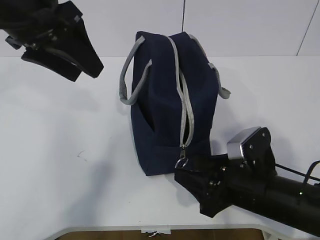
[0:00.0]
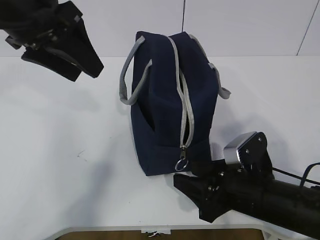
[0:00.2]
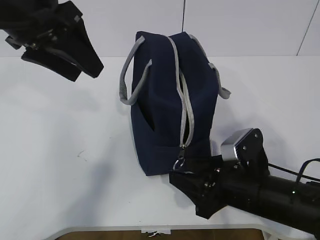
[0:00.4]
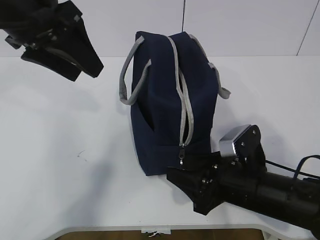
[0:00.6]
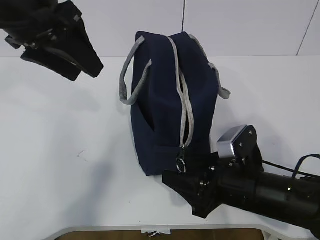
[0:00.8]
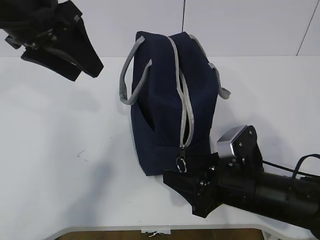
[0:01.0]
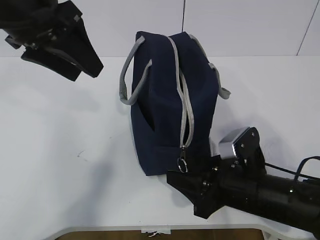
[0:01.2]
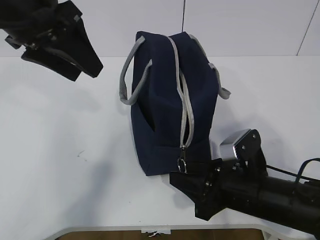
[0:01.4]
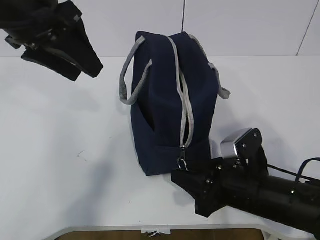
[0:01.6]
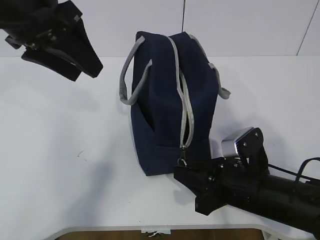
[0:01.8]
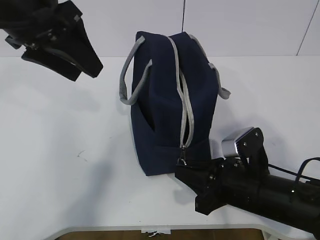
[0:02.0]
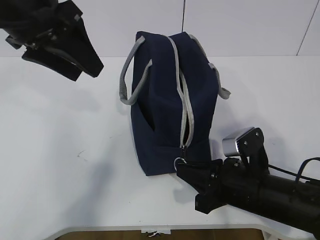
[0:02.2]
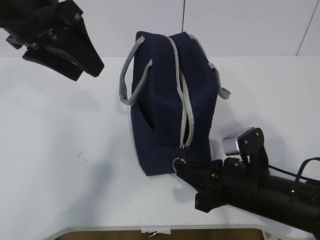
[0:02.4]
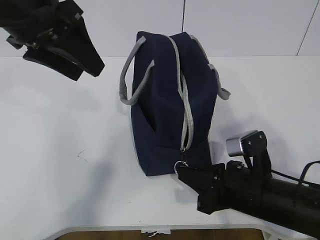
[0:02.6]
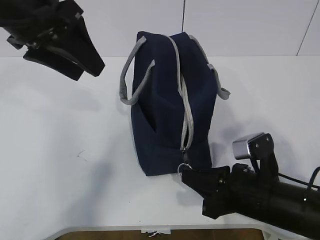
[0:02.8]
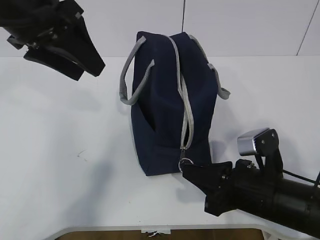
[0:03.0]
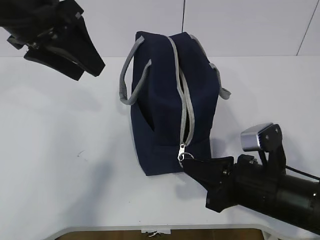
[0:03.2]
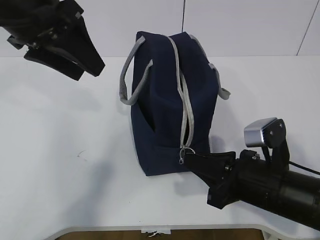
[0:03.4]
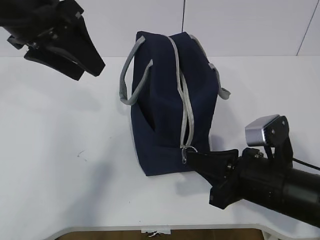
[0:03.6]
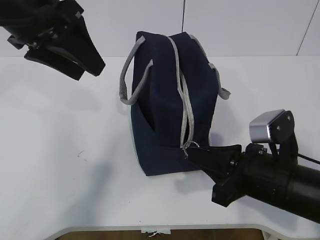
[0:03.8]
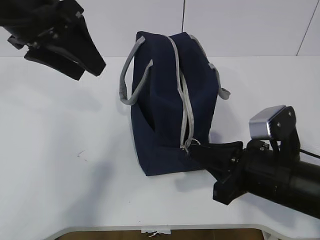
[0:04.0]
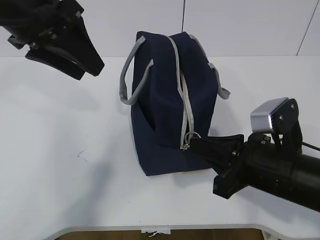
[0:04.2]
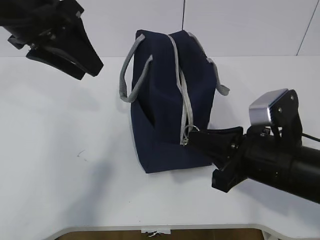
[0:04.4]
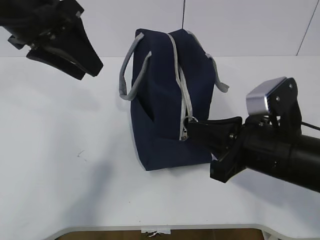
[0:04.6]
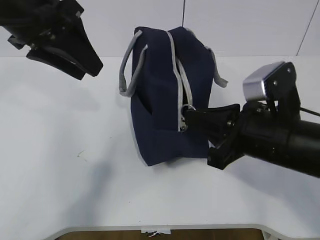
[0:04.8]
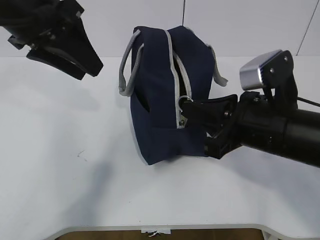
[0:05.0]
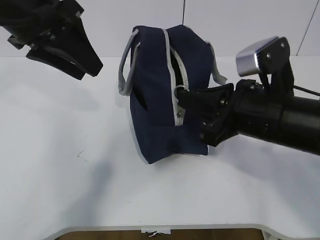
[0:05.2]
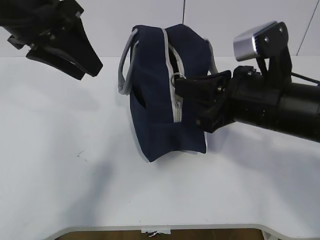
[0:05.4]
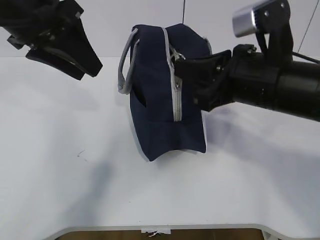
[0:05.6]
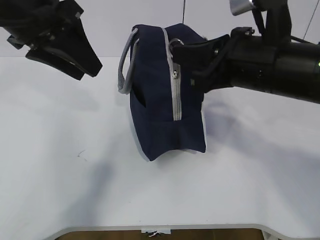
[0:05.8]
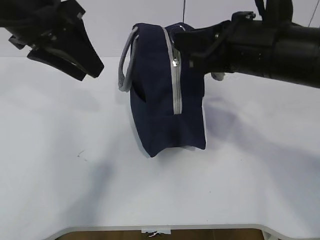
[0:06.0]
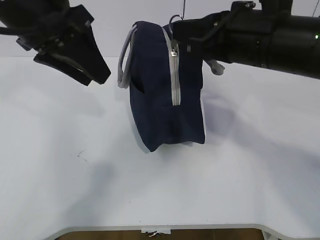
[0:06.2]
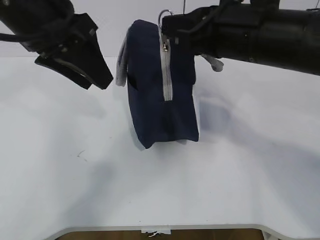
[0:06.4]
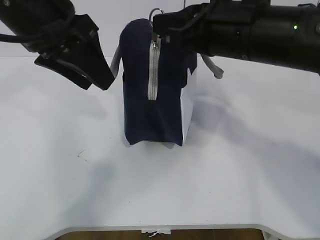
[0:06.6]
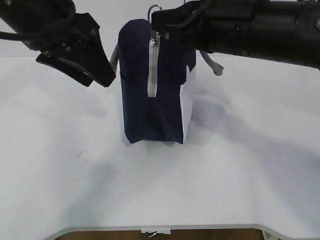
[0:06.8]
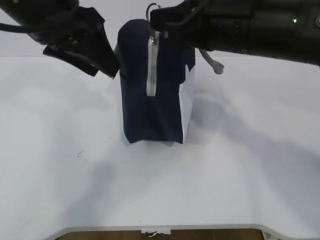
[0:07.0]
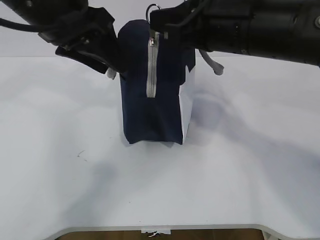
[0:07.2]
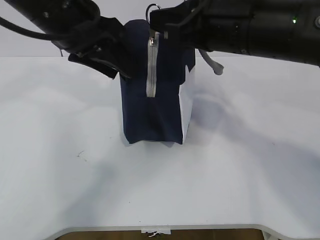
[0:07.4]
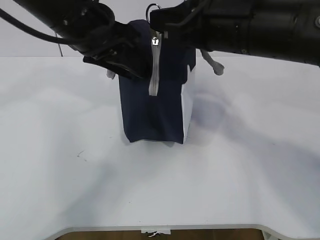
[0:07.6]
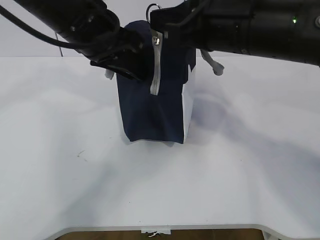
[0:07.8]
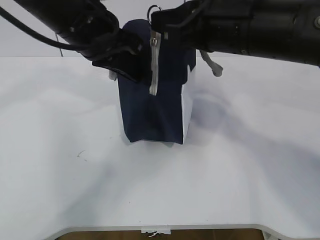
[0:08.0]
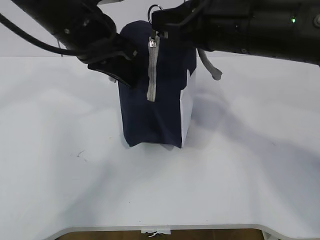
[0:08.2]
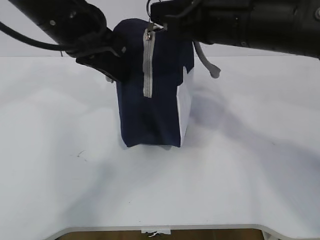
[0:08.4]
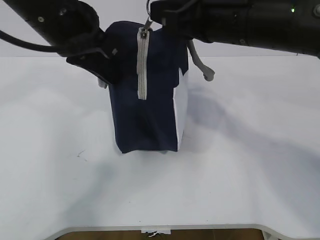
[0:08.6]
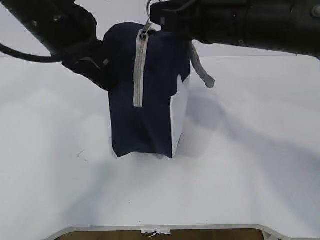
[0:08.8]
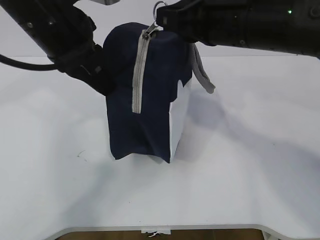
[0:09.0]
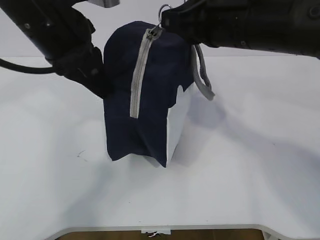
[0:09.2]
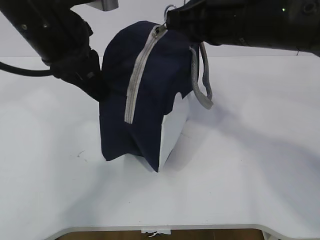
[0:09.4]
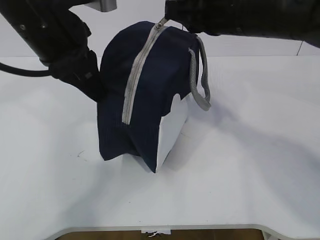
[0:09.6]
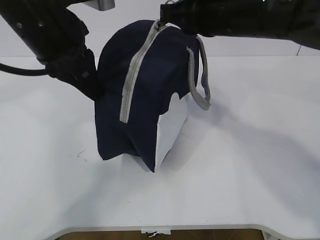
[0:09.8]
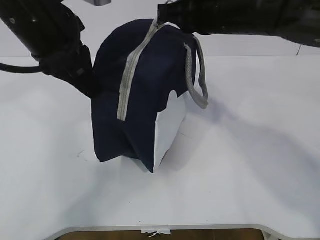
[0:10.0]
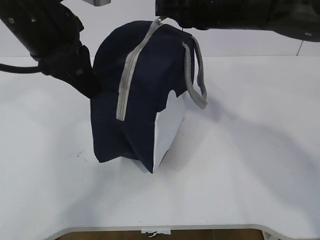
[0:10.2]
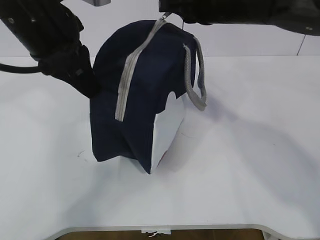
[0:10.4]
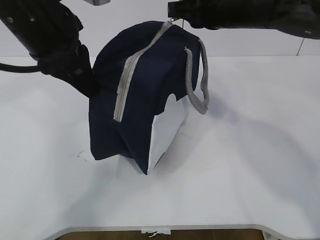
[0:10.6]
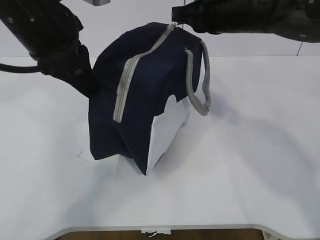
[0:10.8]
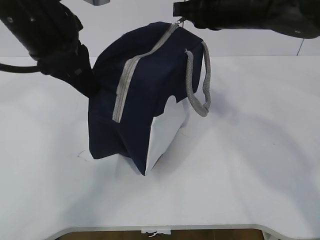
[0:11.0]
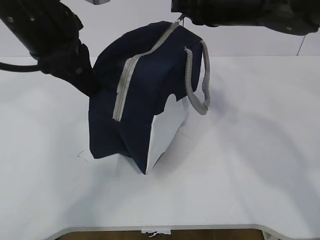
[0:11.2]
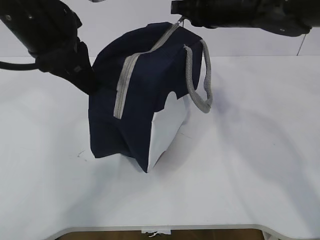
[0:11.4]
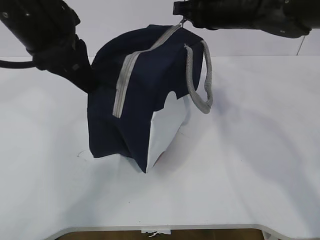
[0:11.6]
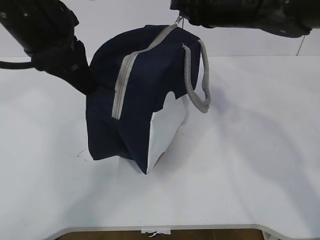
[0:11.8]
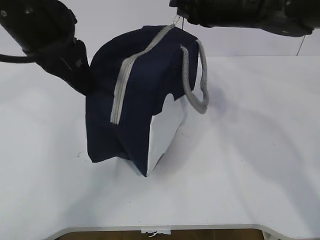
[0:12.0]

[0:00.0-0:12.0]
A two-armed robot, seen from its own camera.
0:00.0 to 0:01.6: The grippers stay close to where they were, moving slightly.
0:01.6 to 0:03.0: The right gripper closes up.
0:03.0 to 0:04.4: The right gripper is displaced upward by about 5 cm.
0:04.4 to 0:06.0: The right gripper travels upward and forward by some 15 cm.
0:06.0 to 0:07.6: The left gripper moves to the right, about 5 cm.
0:07.6 to 0:09.0: The left gripper closes.
0:09.0 to 0:10.4: The right gripper heads forward, covering about 5 cm.
0:10.4 to 0:12.0: The right gripper is displaced forward by some 5 cm.

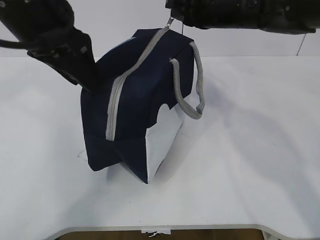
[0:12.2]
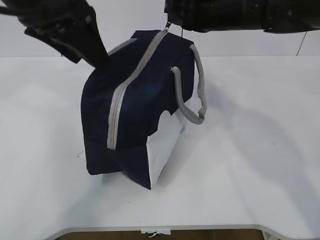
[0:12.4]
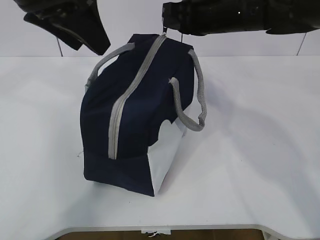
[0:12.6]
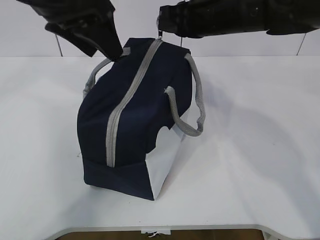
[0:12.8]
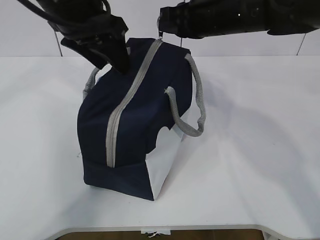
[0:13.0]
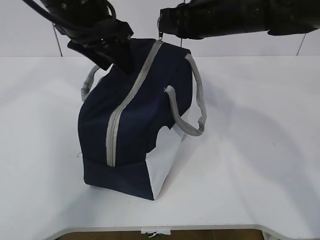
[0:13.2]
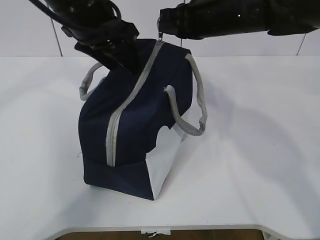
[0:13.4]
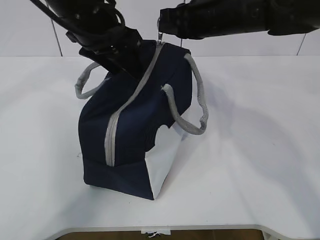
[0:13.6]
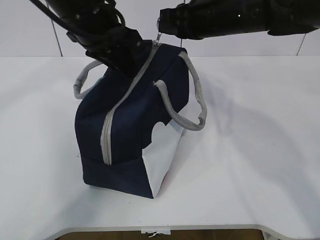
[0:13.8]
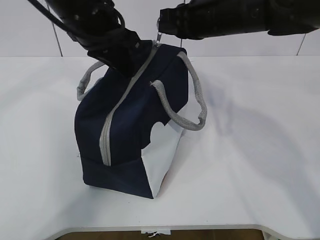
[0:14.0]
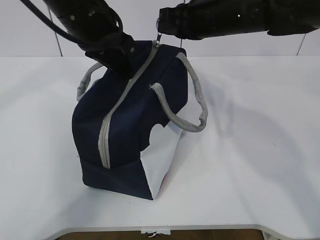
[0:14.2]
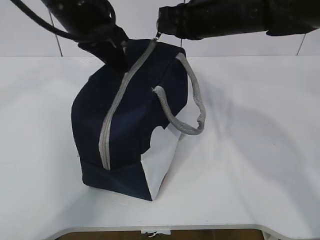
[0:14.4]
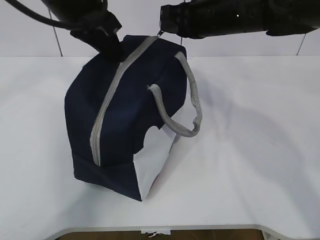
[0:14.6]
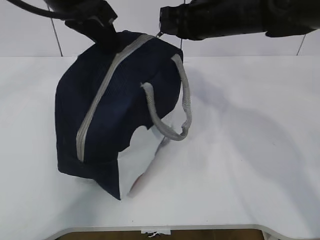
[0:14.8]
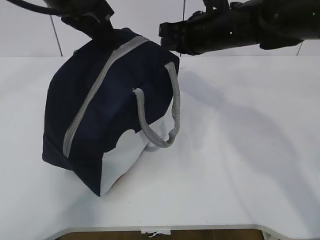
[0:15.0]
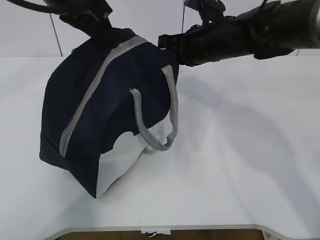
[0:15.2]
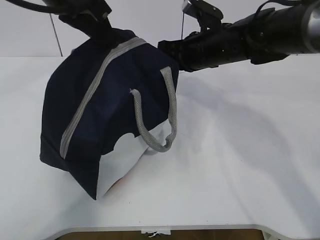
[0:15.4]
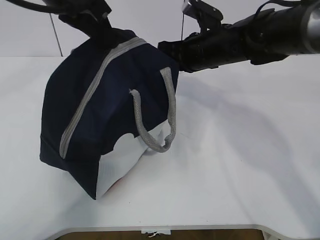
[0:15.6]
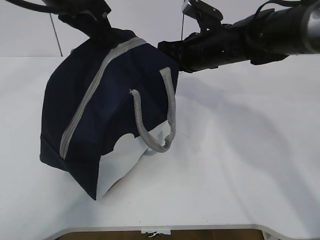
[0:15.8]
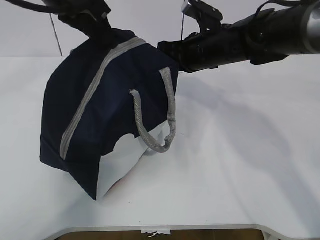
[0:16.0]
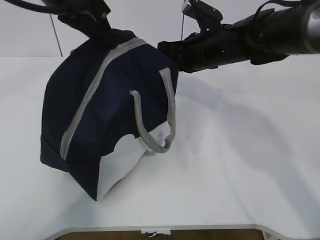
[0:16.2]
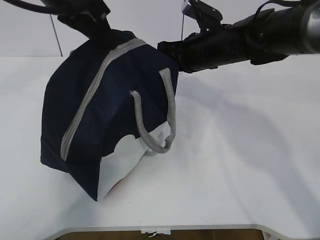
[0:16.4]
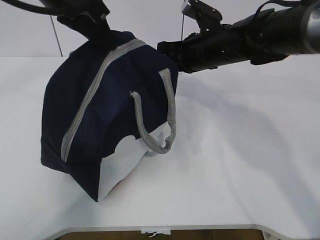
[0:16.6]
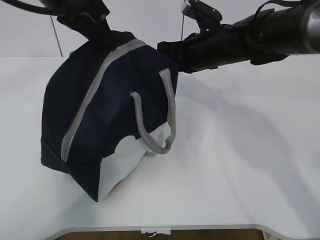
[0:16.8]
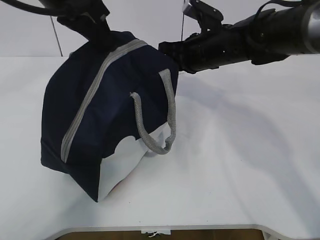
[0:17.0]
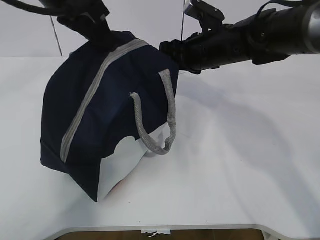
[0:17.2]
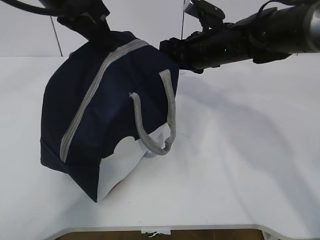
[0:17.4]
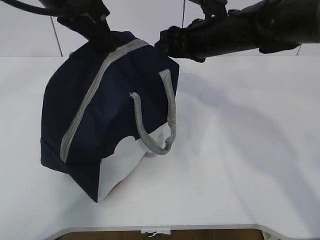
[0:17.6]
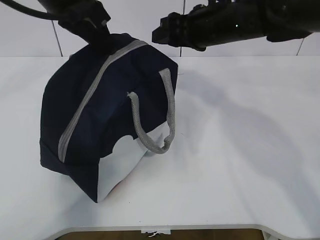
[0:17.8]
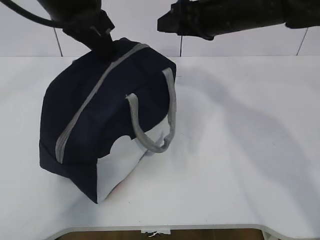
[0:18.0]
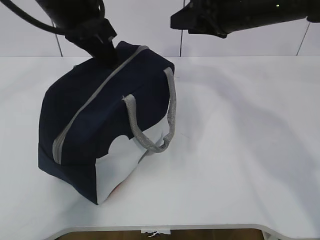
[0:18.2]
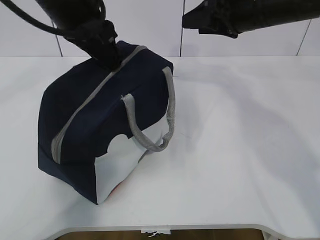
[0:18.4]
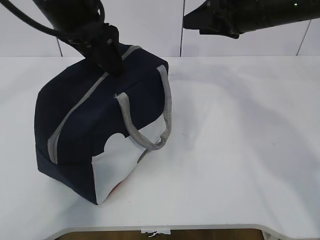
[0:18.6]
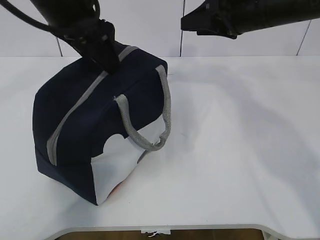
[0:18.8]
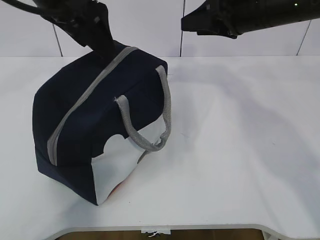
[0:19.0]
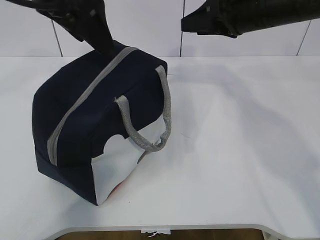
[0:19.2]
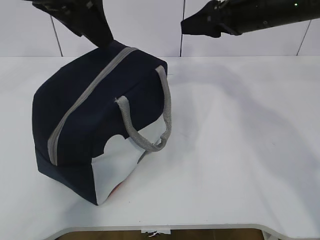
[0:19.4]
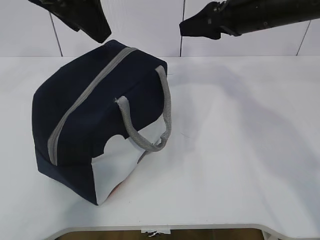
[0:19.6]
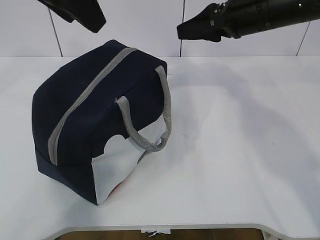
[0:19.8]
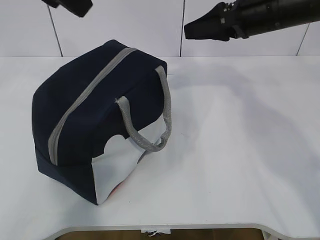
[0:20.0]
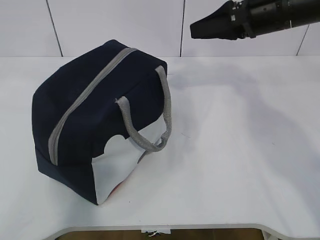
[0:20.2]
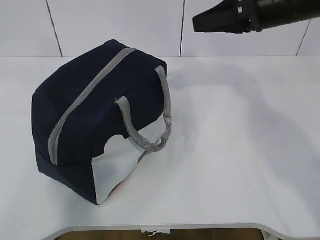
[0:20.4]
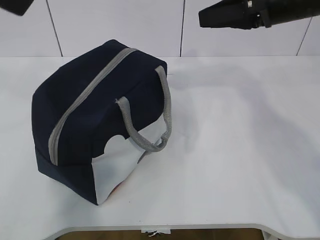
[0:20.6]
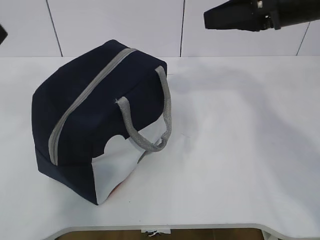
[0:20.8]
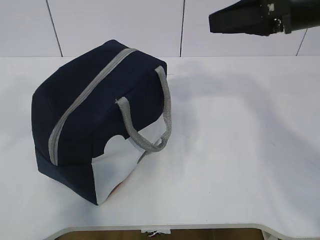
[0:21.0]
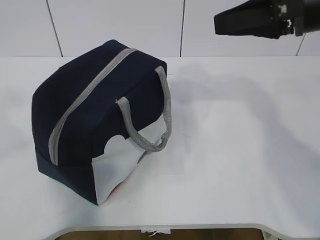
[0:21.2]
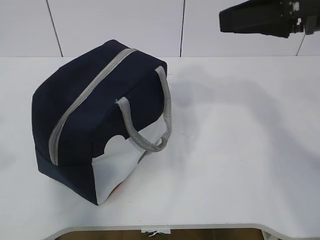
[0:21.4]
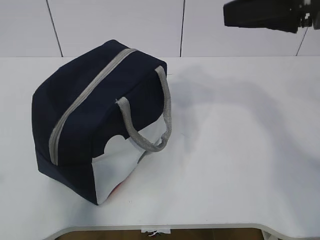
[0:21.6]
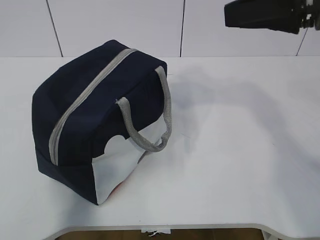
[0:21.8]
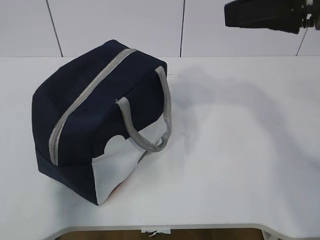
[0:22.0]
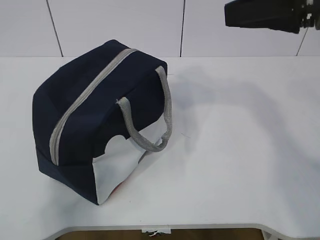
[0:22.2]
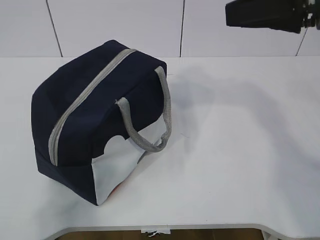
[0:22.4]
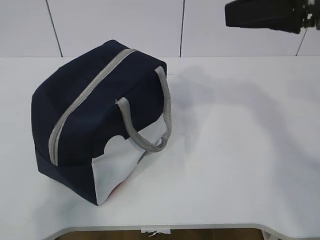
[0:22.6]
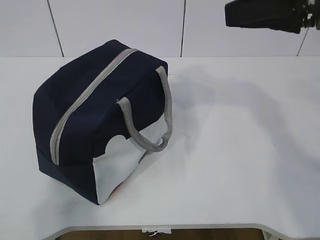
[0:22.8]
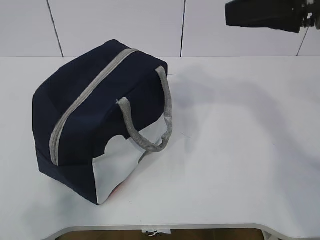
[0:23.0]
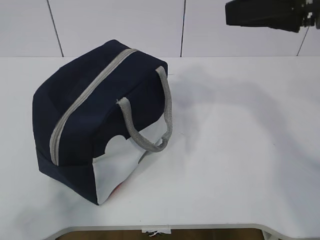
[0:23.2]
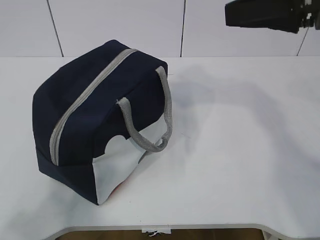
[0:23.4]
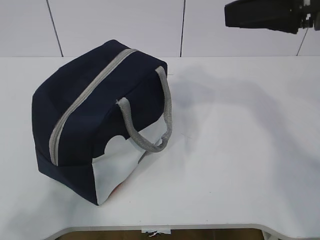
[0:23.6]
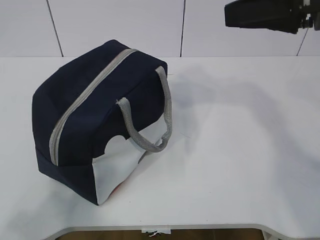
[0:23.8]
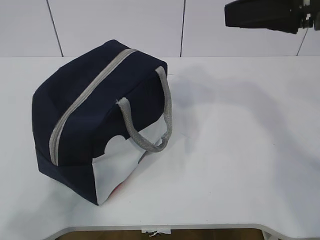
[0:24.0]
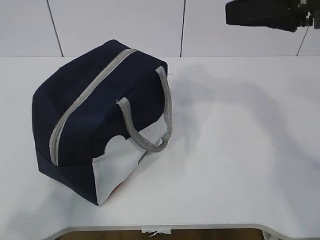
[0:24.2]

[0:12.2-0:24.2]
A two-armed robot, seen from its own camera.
Step, 0:12.2 to 0:19.8: zip up the zipper to close the bag.
0:12.2 to 0:13.8: The left gripper goes roughly 5 cm forward.
0:13.8 to 0:15.2: The left gripper travels upward by roughly 5 cm, and closes its fingers. Meanwhile the right gripper ends up roughly 5 cm from where it was.
0:15.2 to 0:16.6: The grippers make only small movements.
0:16.6 to 0:18.2: The right gripper shifts approximately 10 cm upward, and opens.
0:18.2 to 0:19.8: The left gripper travels upward by roughly 5 cm, and opens its fingers.
0:19.8 to 0:21.2: The right gripper goes about 10 cm backward. The left gripper heads backward and to the left, covering approximately 20 cm.
0:21.2 to 0:22.6: The left gripper shifts roughly 20 cm backward, downward and to the left.
